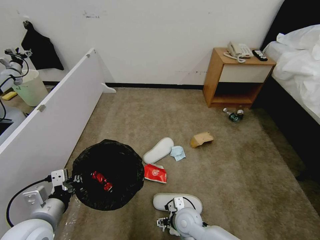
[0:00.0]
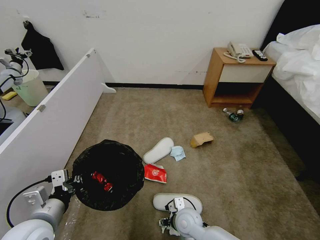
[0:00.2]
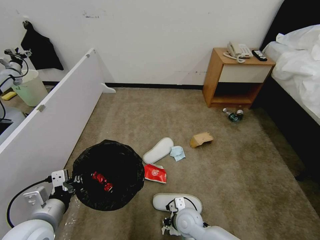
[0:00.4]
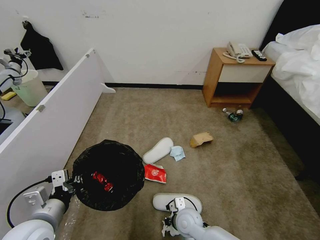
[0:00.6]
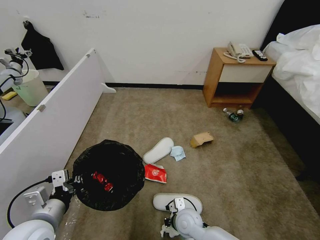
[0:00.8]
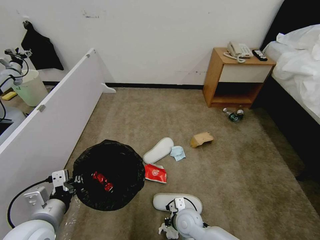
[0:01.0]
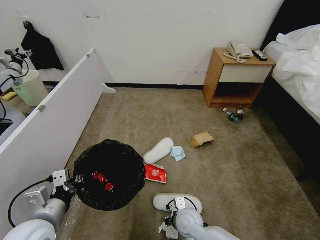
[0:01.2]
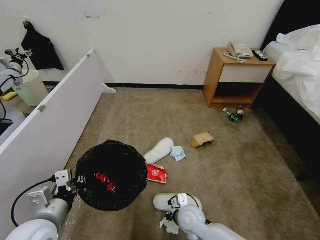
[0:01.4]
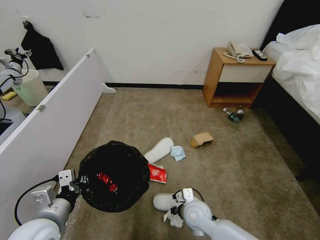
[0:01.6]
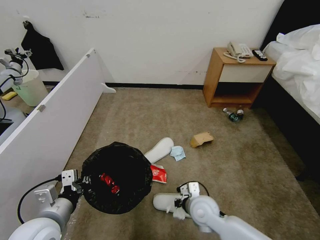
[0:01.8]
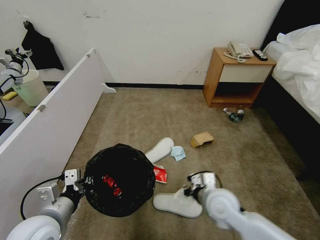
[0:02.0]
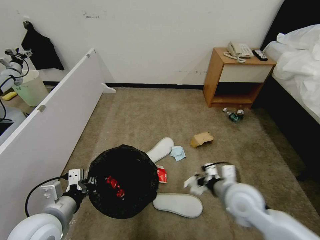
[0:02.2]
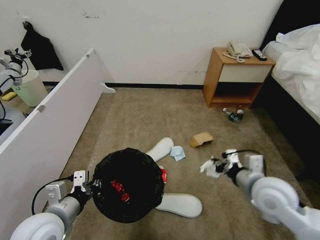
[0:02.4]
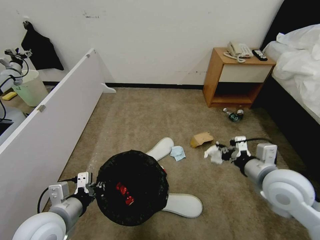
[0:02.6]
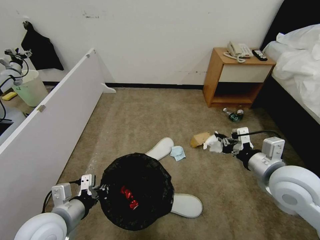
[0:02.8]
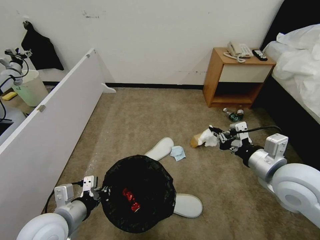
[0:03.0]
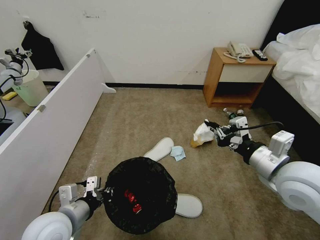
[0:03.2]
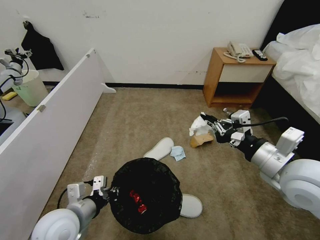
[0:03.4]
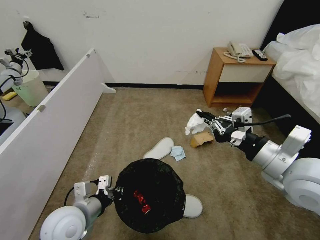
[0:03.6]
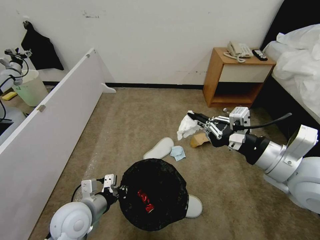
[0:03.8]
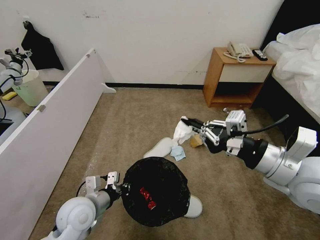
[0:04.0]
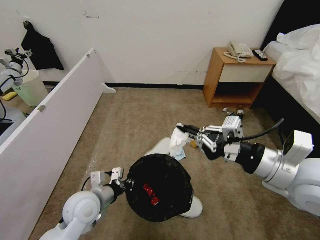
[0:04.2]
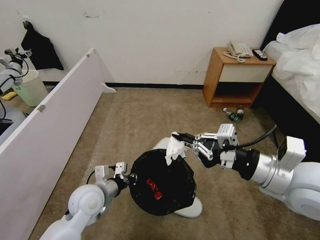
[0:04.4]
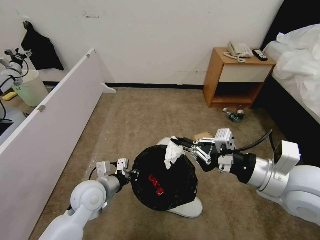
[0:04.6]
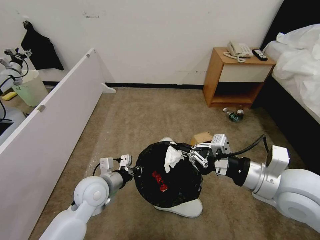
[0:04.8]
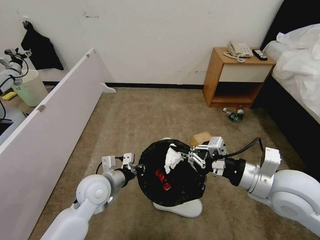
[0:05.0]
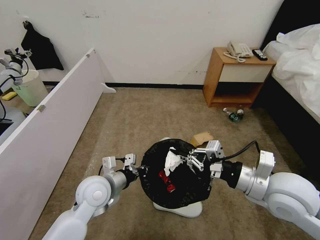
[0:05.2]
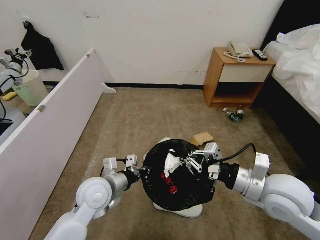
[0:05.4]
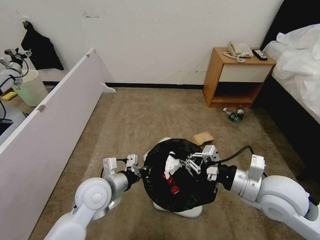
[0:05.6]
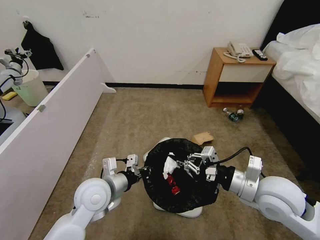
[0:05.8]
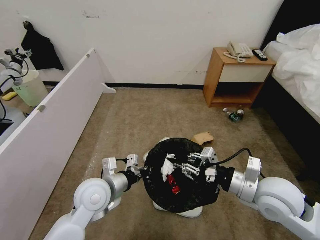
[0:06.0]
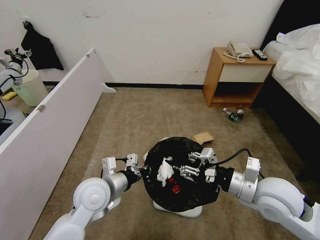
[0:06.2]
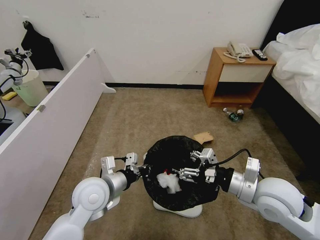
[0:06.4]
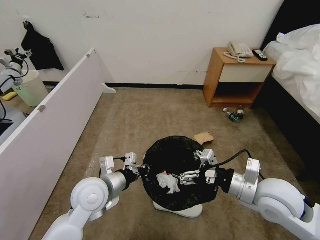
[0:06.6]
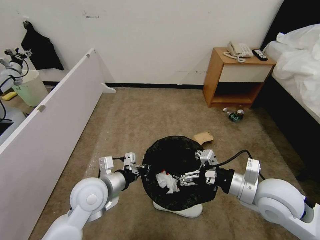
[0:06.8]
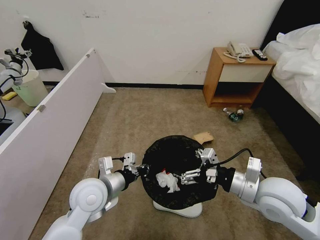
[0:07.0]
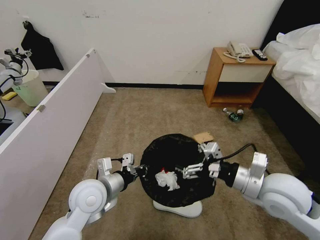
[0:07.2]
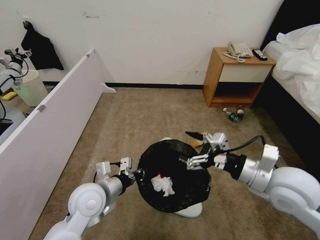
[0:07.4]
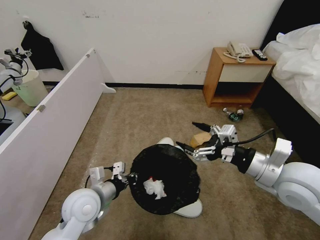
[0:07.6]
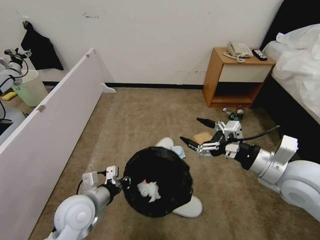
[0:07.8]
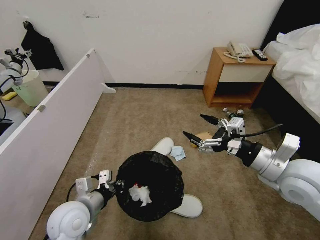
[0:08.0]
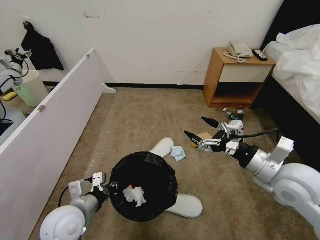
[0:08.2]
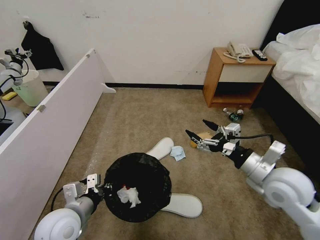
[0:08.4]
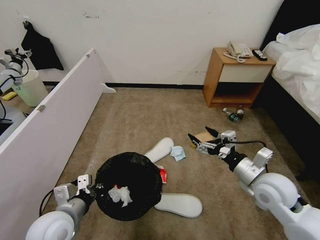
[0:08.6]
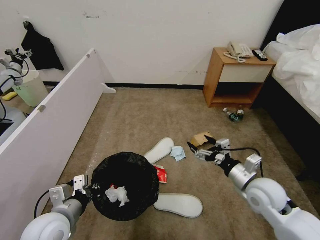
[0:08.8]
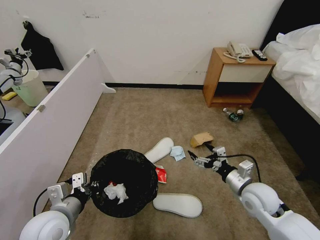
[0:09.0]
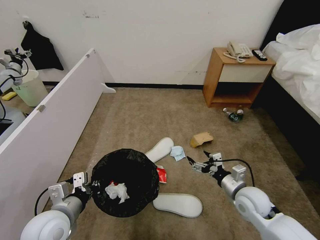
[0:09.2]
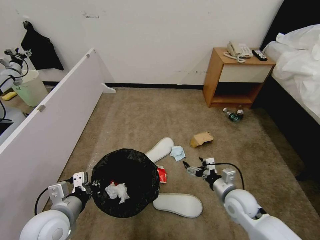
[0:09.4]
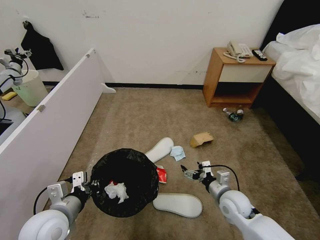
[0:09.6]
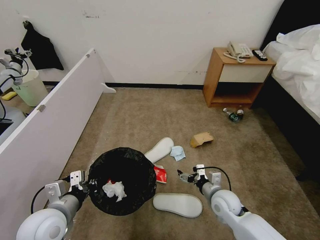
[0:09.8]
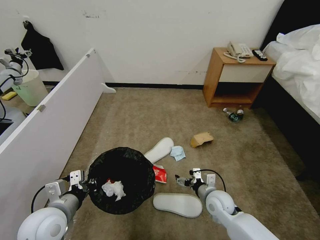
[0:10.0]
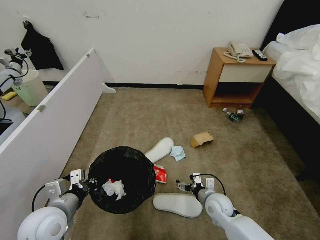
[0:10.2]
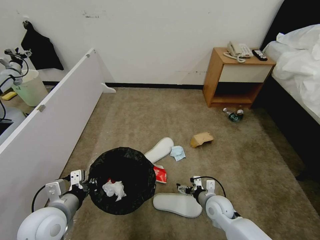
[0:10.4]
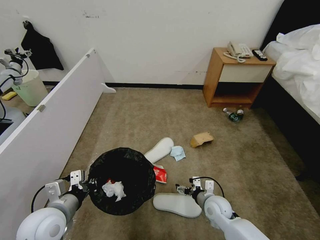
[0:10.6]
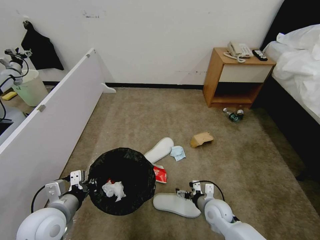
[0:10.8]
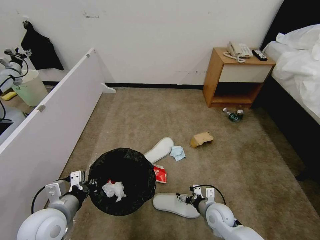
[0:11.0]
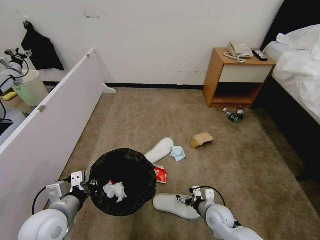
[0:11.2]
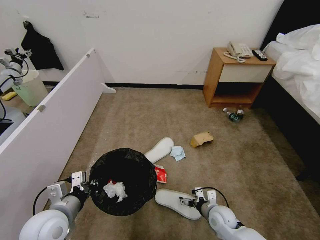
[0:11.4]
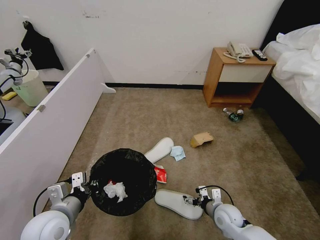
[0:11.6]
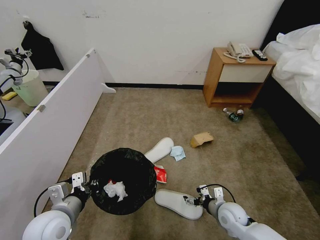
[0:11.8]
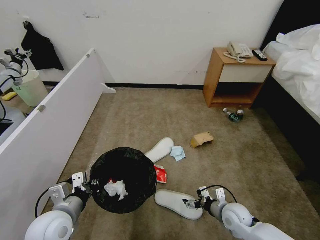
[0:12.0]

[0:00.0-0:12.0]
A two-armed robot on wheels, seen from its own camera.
Task of the whole recording: Pick up the trash bin, then pick up the garbage from the floor and place it into the trash bin.
0:00.0 to 0:01.6: The right gripper shifts by some 5 cm, and closes.
0:01.6 to 0:03.0: The right gripper heads upward and to the right, covering roughly 30 cm.
0:03.0 to 0:04.4: The right gripper changes place by about 5 cm, while the left gripper shifts about 10 cm forward and to the right.
0:04.4 to 0:06.0: The right gripper is displaced downward by approximately 10 cm.
0:06.0 to 0:07.6: The right gripper opens.
0:07.6 to 0:09.0: The left gripper travels to the left and backward by about 10 cm, while the right gripper heads downward, covering approximately 15 cm.
0:09.0 to 0:10.4: The right gripper travels downward and to the left by approximately 15 cm.
0:10.4 to 0:12.0: The right gripper heads to the right, covering approximately 5 cm.

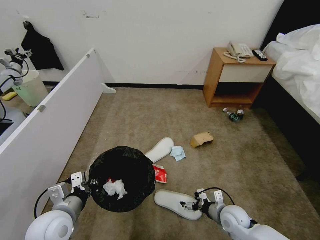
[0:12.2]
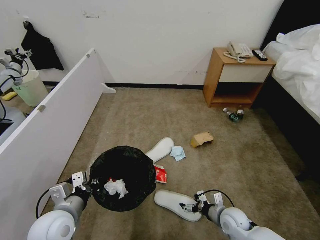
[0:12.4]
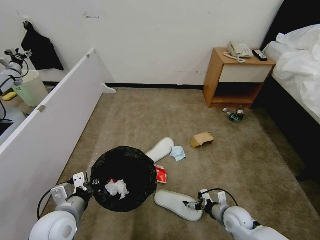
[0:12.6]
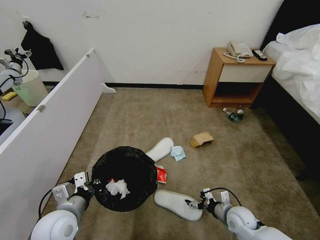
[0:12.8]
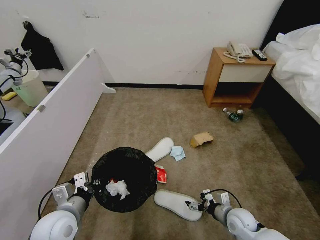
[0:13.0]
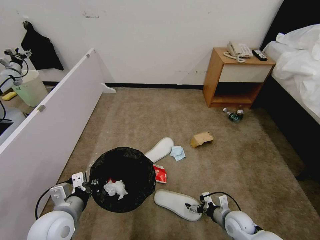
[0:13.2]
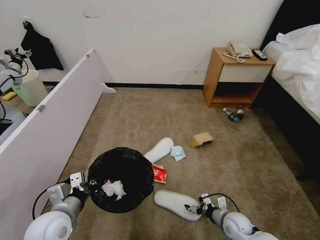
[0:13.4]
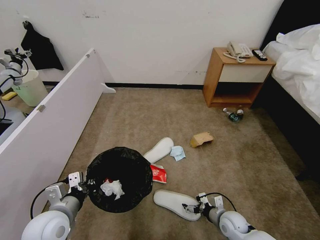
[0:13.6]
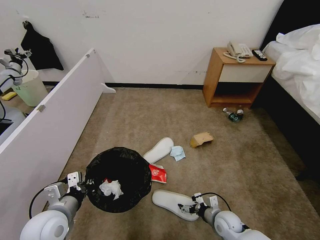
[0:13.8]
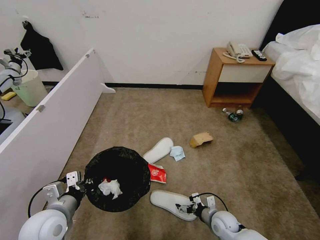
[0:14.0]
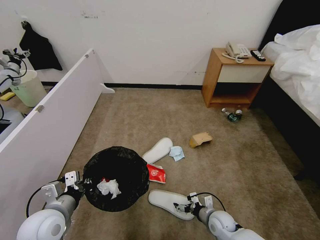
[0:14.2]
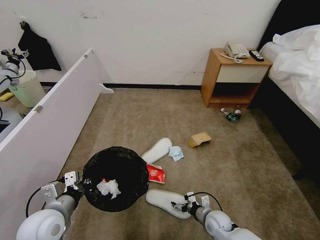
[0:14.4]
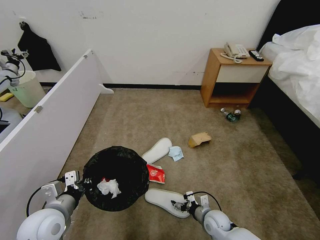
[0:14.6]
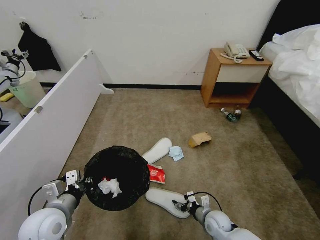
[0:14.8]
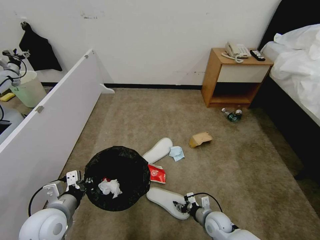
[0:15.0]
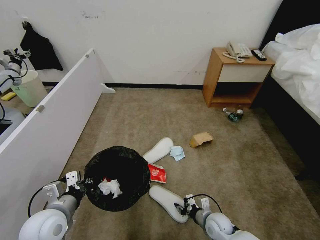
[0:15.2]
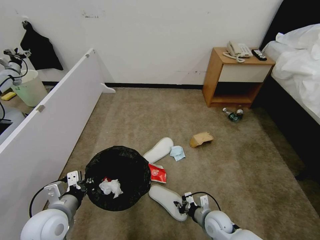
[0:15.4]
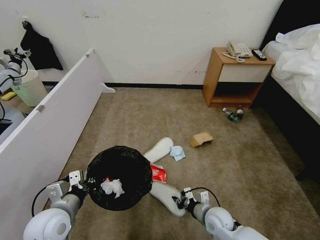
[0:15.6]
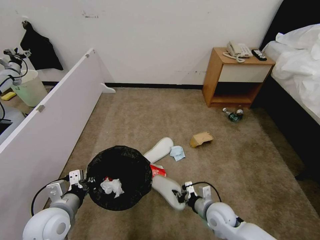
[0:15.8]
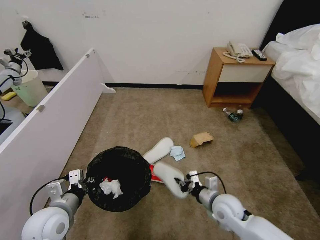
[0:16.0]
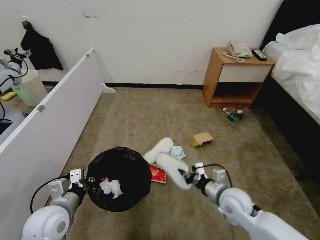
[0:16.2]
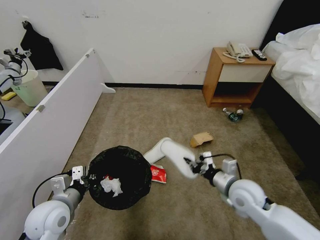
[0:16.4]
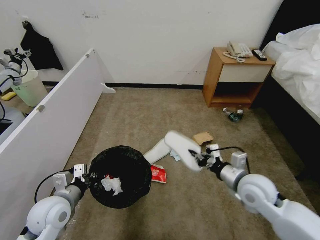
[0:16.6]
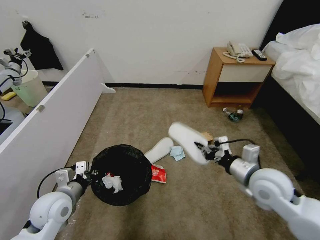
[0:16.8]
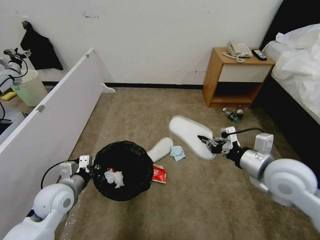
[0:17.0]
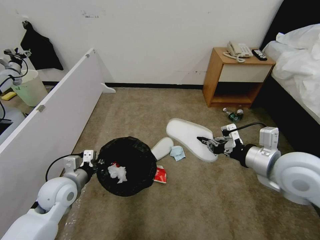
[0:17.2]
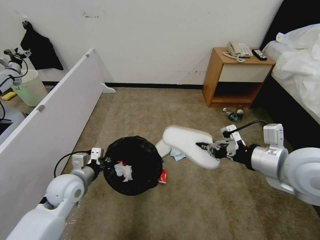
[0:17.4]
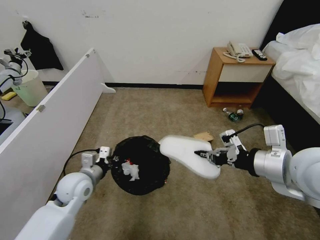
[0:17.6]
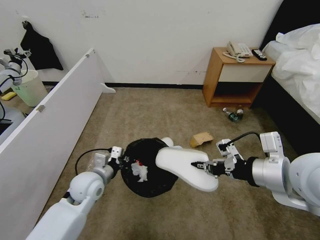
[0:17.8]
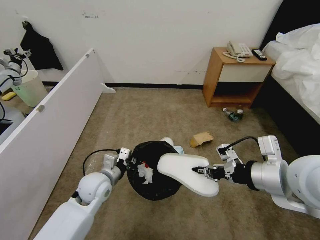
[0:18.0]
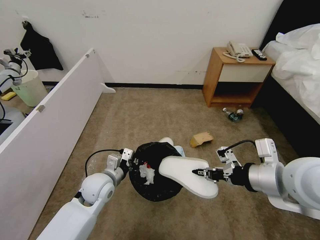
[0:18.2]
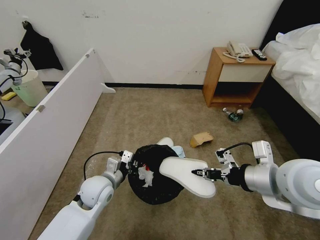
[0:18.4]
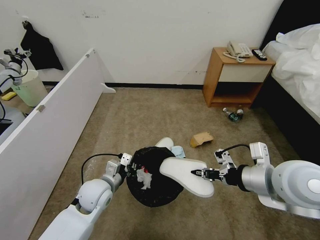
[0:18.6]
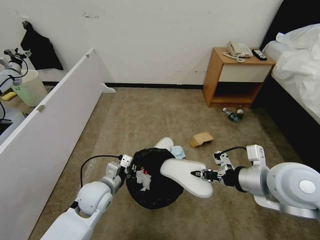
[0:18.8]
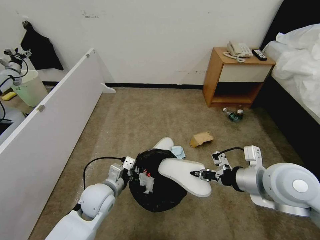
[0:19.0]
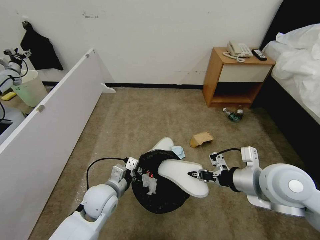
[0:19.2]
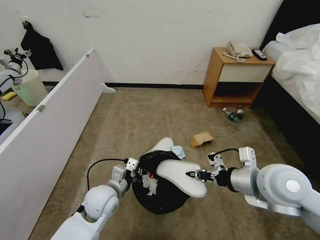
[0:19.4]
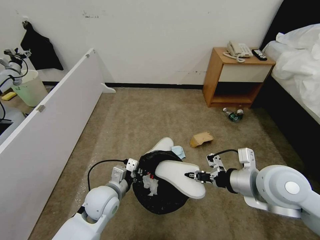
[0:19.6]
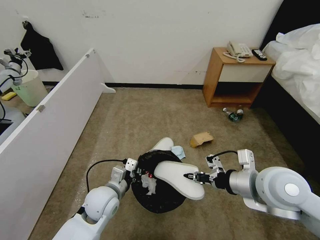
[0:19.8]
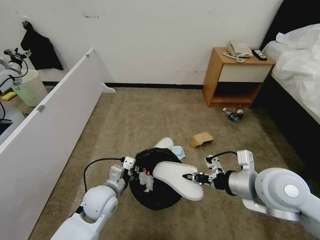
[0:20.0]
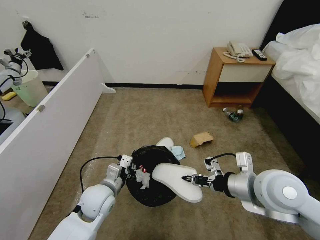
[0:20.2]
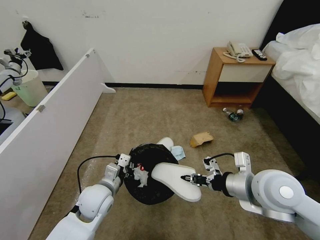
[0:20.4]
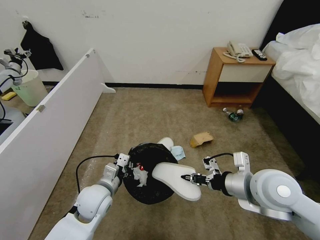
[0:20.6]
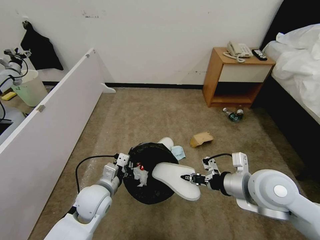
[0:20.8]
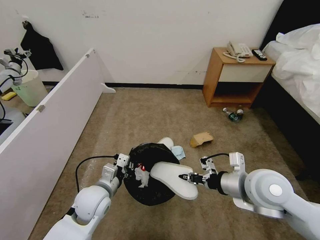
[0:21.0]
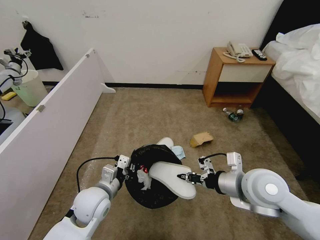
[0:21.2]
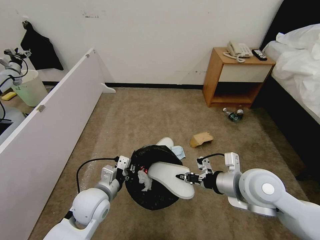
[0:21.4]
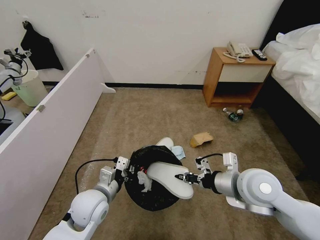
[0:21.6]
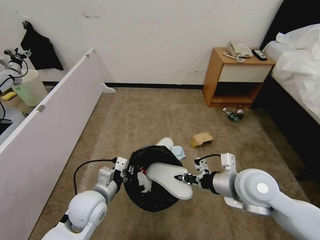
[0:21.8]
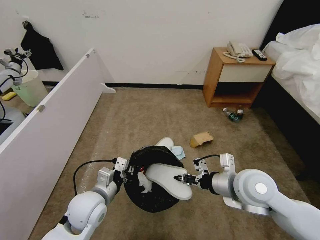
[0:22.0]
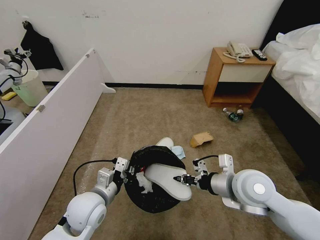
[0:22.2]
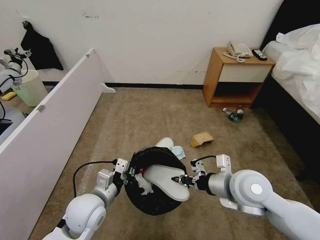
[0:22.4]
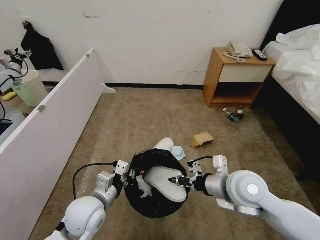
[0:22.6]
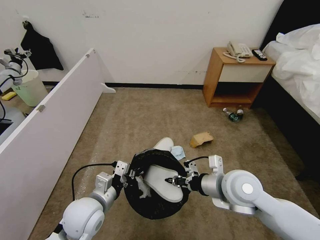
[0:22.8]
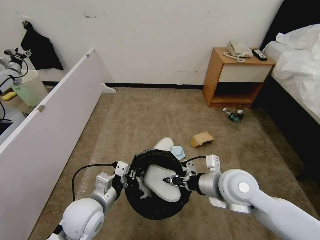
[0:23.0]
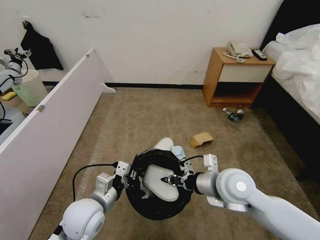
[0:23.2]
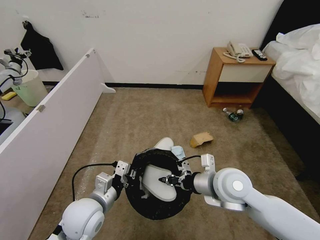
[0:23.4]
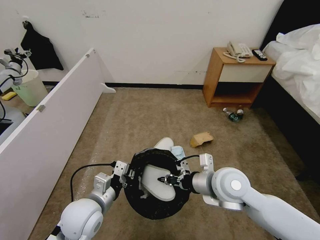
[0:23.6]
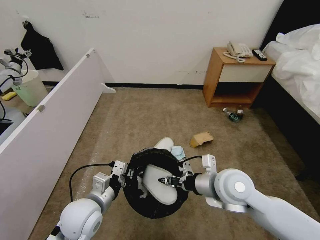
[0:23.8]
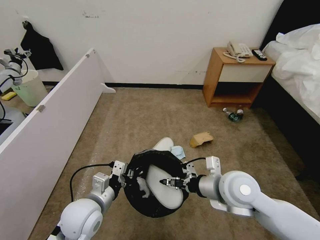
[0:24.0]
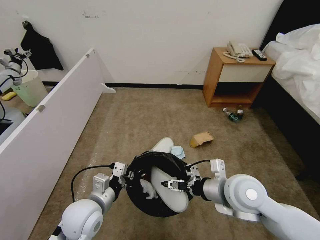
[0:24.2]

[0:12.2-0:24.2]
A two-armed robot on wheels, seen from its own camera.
Task of the whole recording: Pick up the trash bin, then pick up the garbage from the floor and place it into the trash bin.
0:12.2 to 0:13.8: The grippers make only small movements.
0:13.8 to 0:15.2: The right gripper closes.
0:15.2 to 0:16.6: The right gripper goes approximately 25 cm upward.
0:16.6 to 0:18.2: The right gripper is displaced upward by about 15 cm; the left gripper travels to the right and forward by some 15 cm.
0:18.2 to 0:19.8: The right gripper shifts about 5 cm downward.
0:19.8 to 0:21.2: There are only small adjustments of the grippers.
0:21.2 to 0:22.6: The grippers make only small movements.
0:22.6 to 0:24.2: The right gripper opens its fingers.
